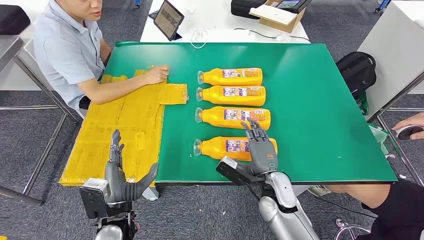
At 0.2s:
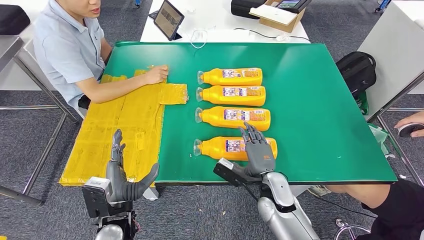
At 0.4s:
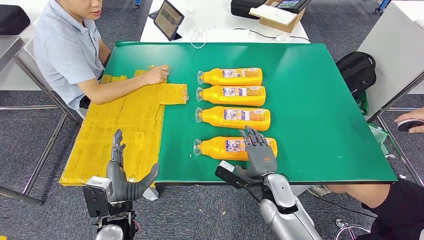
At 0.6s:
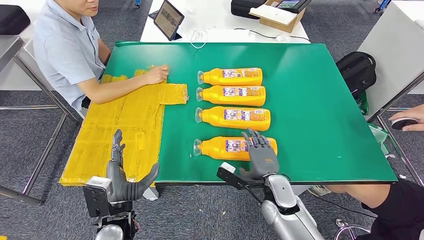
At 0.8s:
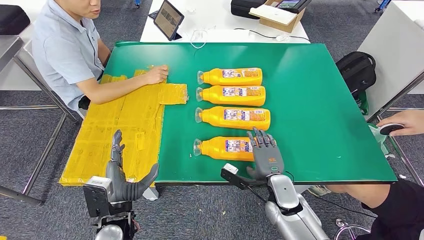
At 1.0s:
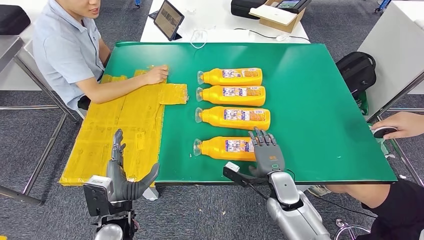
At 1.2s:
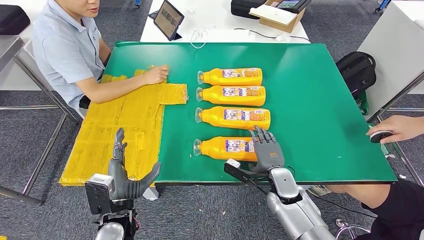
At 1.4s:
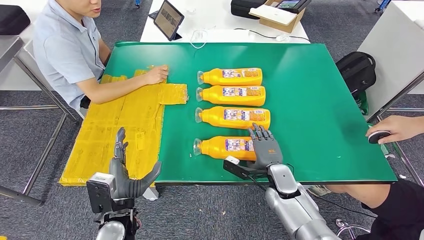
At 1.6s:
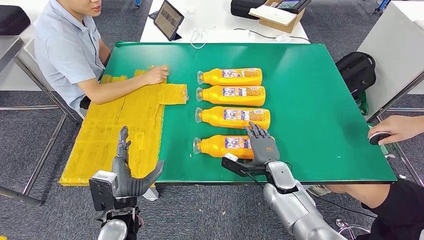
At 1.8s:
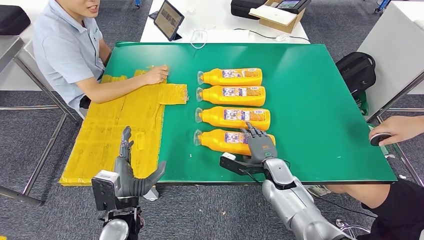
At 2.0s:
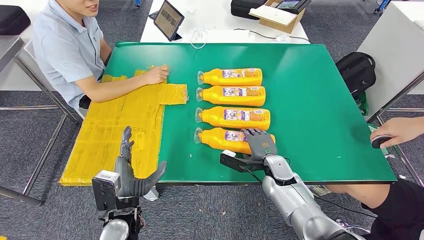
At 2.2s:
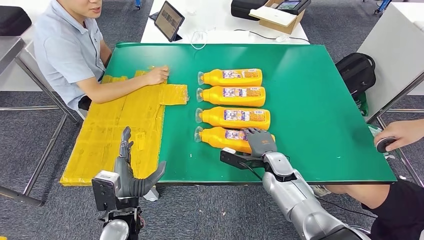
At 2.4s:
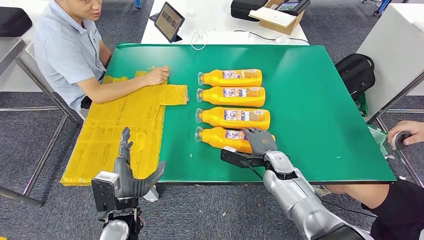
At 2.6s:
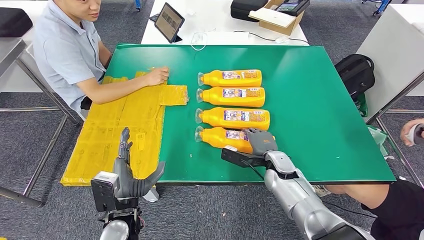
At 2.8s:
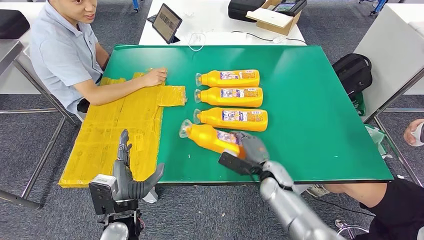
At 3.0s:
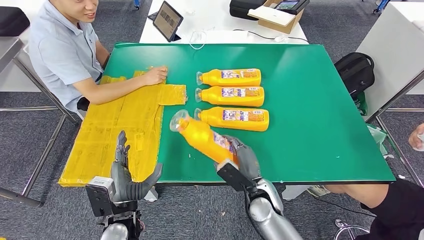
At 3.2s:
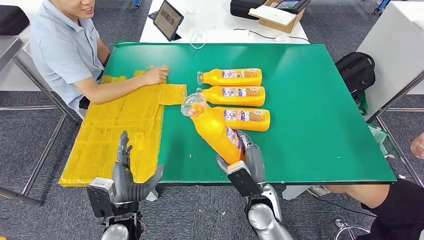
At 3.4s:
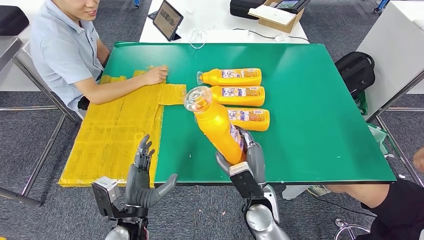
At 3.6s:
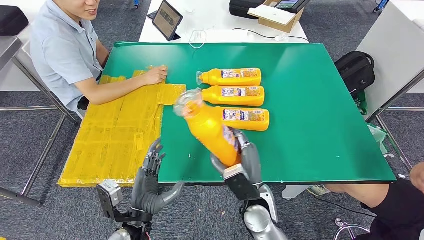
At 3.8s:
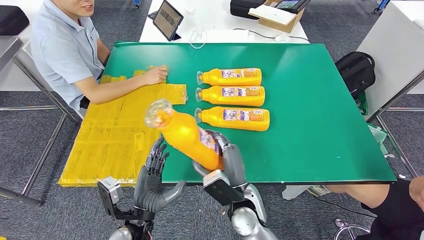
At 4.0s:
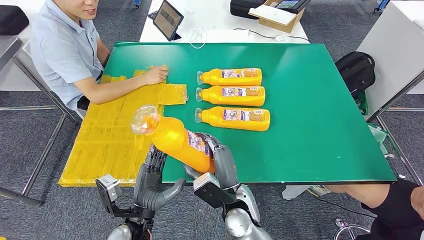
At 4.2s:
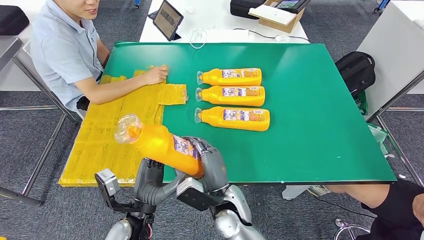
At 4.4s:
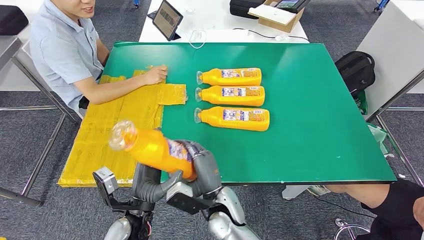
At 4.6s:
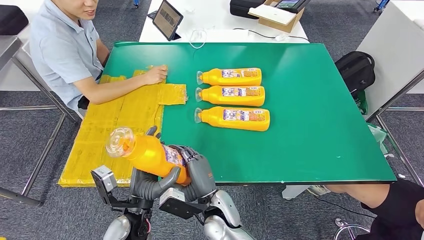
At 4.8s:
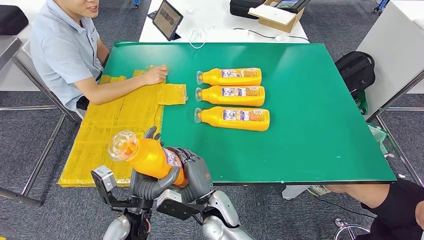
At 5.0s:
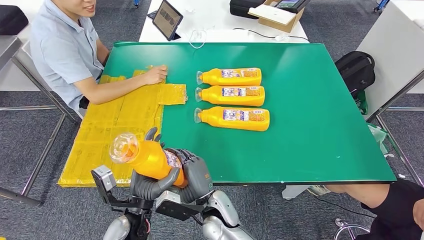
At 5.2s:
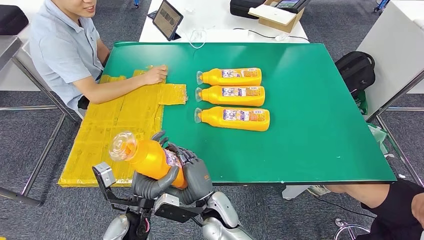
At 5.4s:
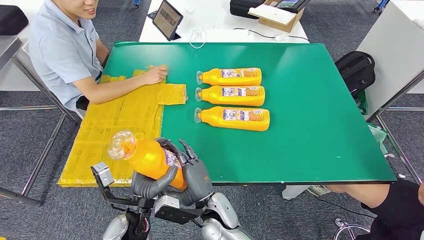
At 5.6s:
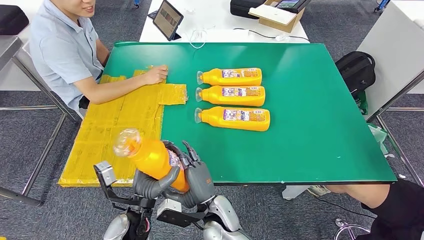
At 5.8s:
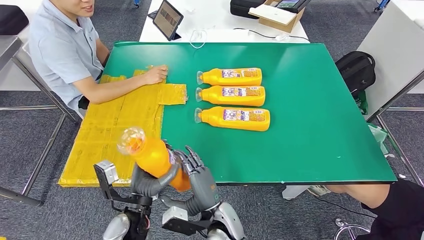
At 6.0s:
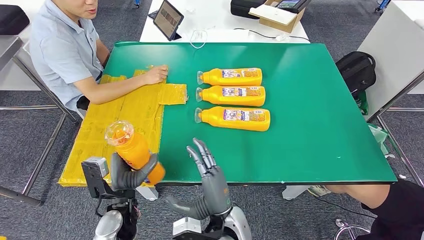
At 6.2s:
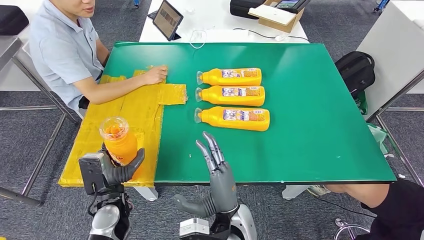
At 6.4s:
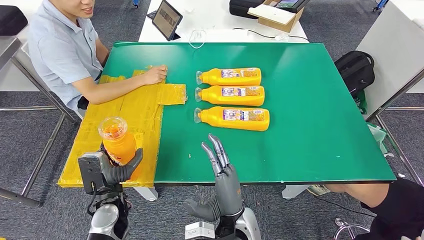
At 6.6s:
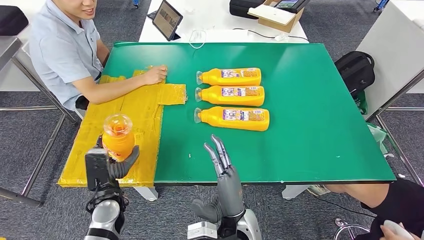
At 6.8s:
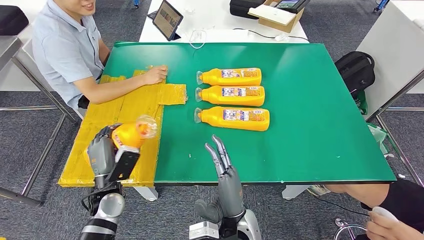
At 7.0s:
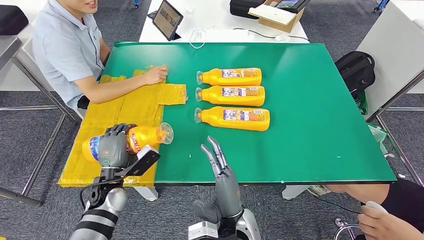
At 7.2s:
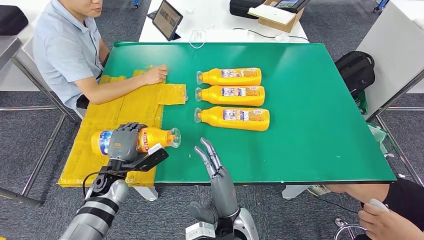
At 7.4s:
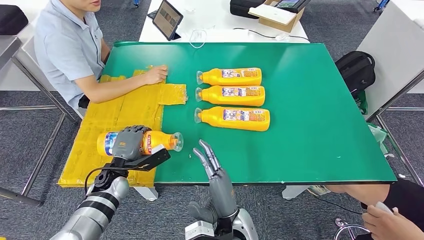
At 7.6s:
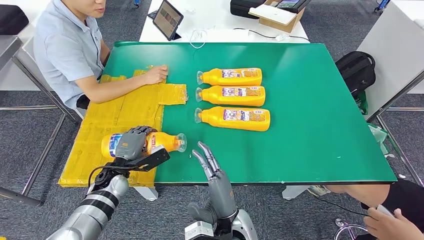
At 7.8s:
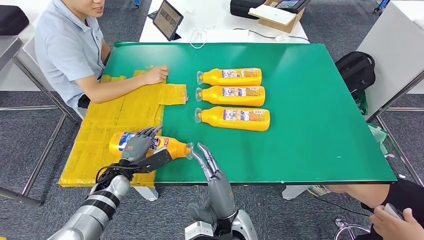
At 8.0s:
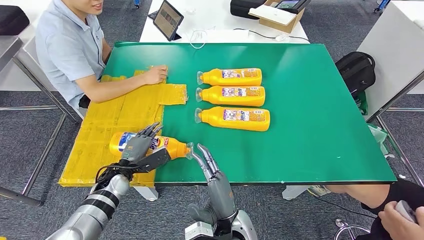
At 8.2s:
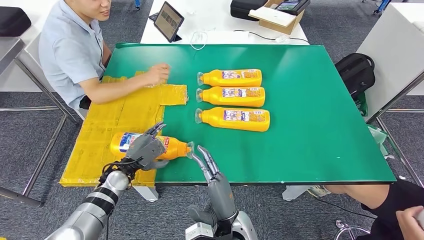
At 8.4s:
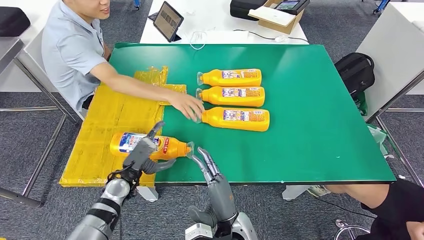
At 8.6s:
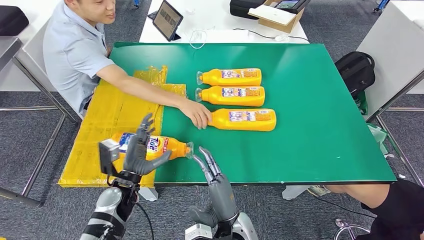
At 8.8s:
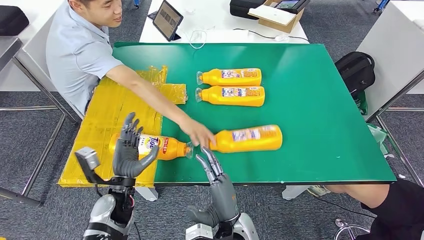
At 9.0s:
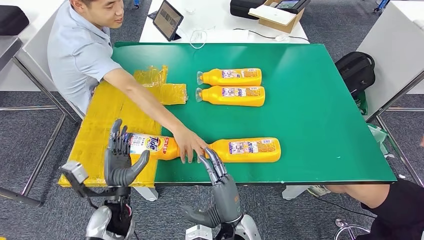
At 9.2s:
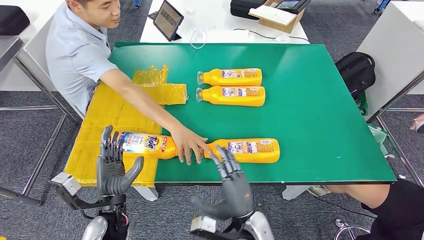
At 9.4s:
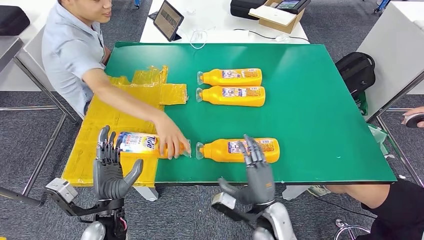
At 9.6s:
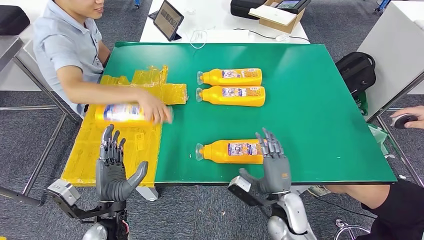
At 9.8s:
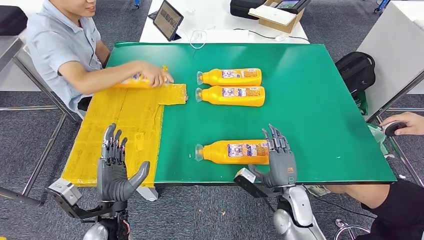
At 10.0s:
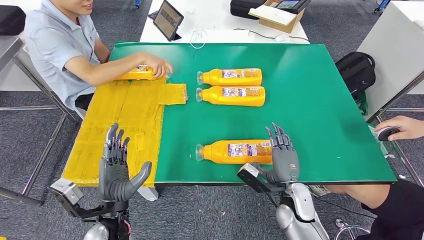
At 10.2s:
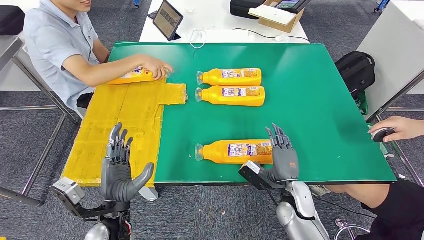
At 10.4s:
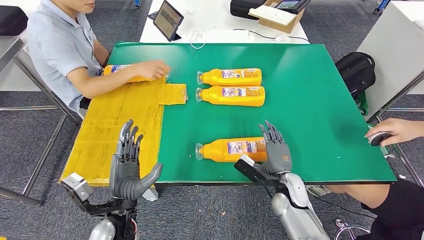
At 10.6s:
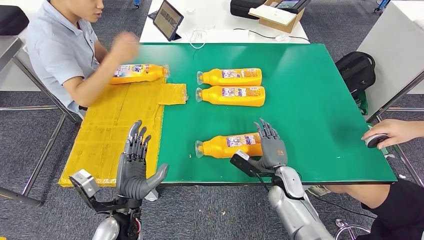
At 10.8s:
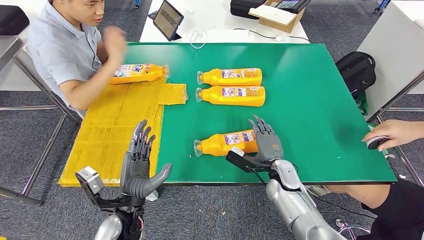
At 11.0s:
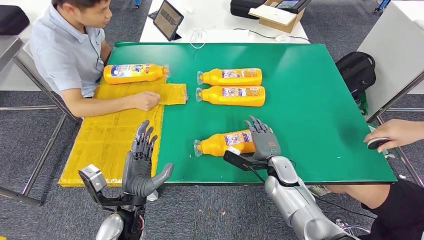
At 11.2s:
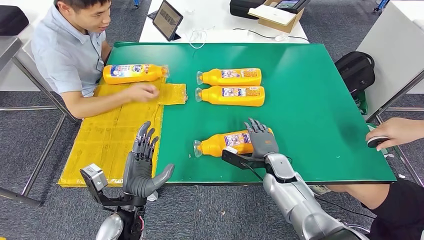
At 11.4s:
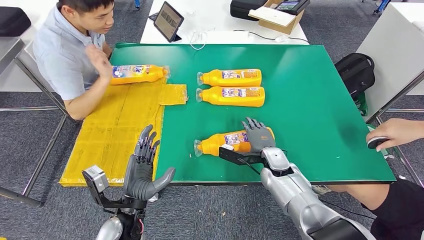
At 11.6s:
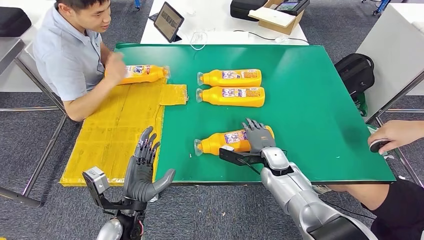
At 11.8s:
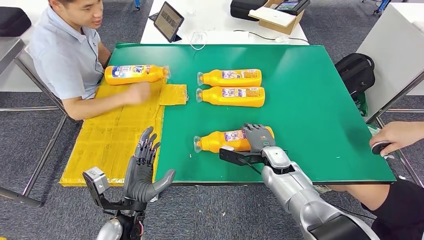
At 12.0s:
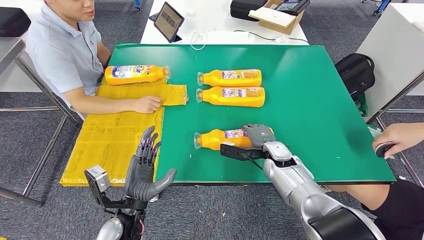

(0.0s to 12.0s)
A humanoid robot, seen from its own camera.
Step, 0.0s - 3.2s: Take the fast-moving consumer goods bottle from the table.
Step, 3.4s - 8.0s: Flip the fast-moving consumer goods bottle to the front side.
1.6s - 3.0s: The right hand travels backward by about 5 cm.
3.0s - 4.4s: The right hand shifts roughly 10 cm to the left.
4.4s - 6.0s: The left hand moves some 5 cm.
6.0s - 7.6s: The left hand moves forward and to the left, some 10 cm.

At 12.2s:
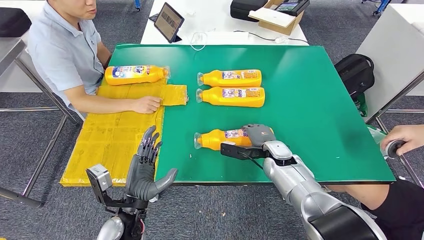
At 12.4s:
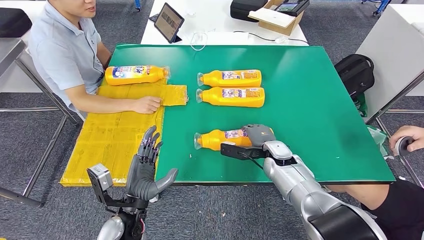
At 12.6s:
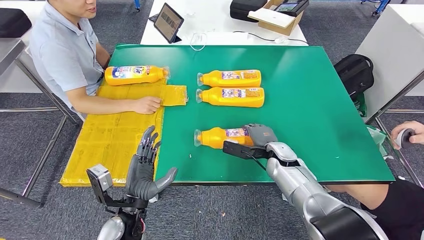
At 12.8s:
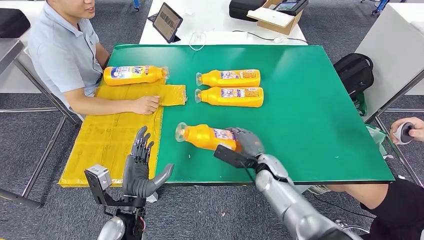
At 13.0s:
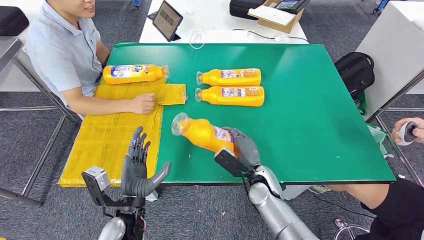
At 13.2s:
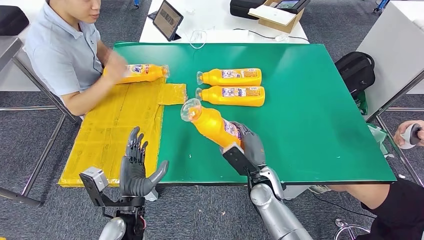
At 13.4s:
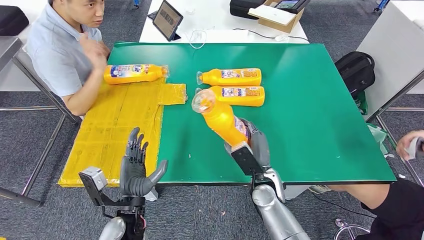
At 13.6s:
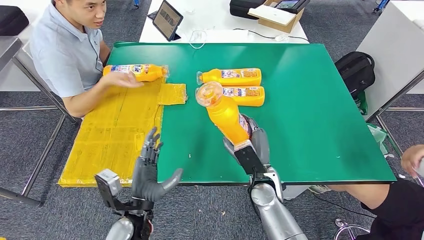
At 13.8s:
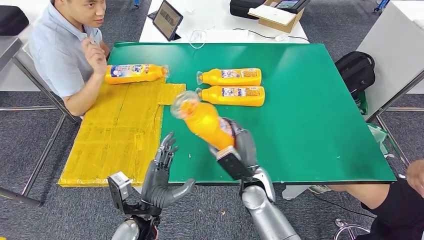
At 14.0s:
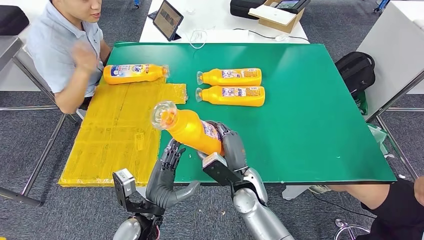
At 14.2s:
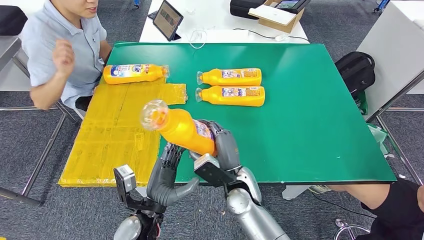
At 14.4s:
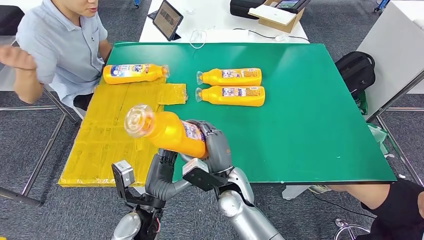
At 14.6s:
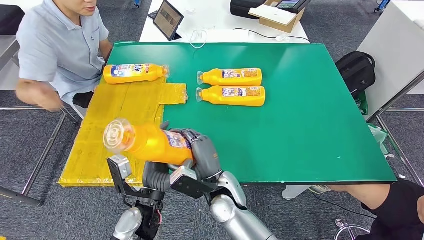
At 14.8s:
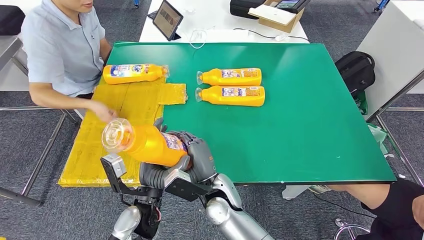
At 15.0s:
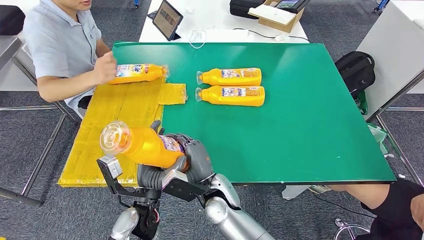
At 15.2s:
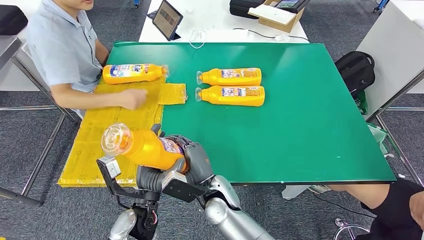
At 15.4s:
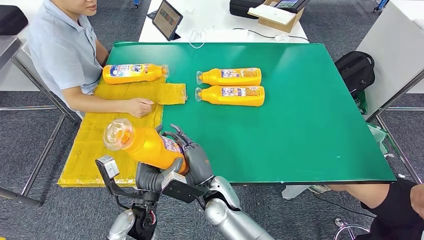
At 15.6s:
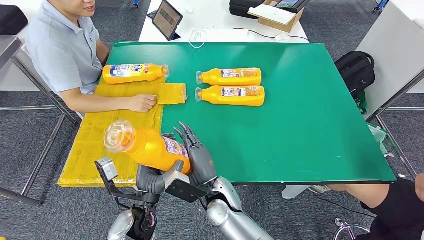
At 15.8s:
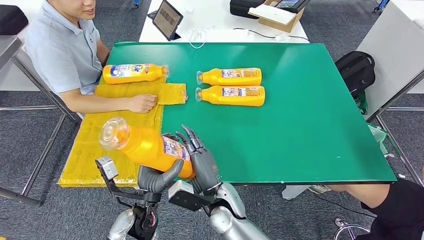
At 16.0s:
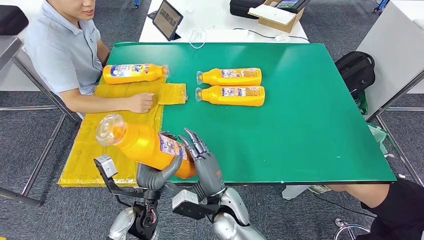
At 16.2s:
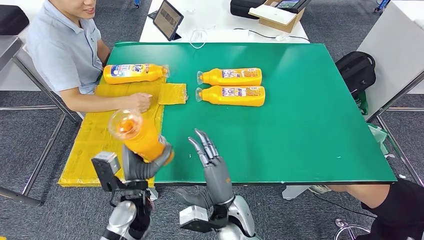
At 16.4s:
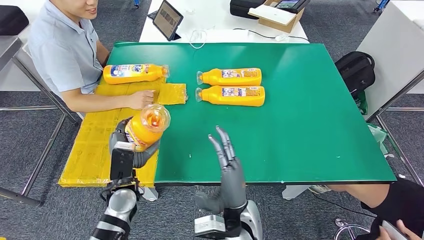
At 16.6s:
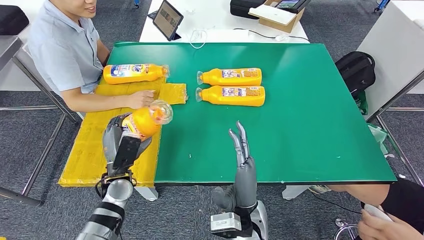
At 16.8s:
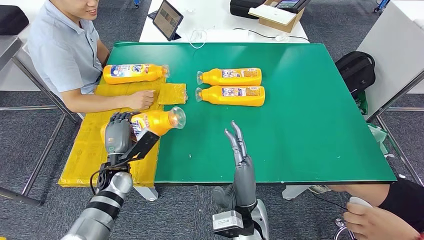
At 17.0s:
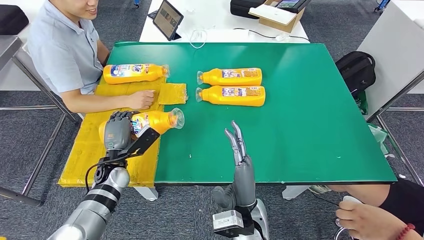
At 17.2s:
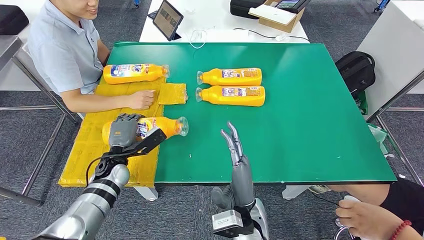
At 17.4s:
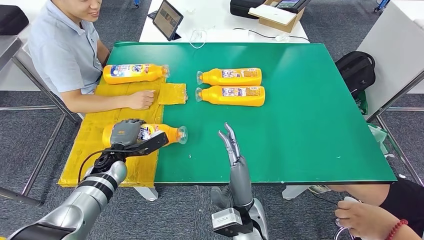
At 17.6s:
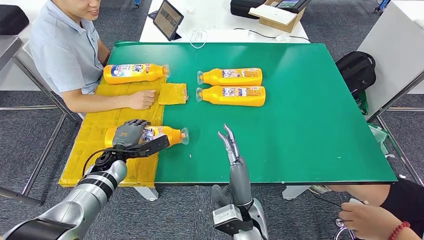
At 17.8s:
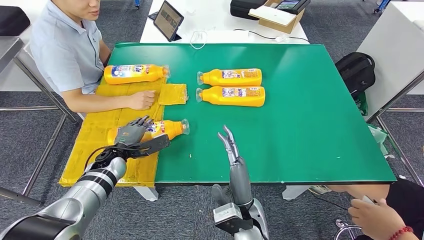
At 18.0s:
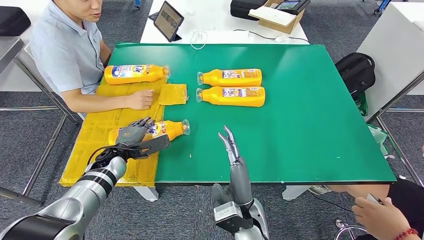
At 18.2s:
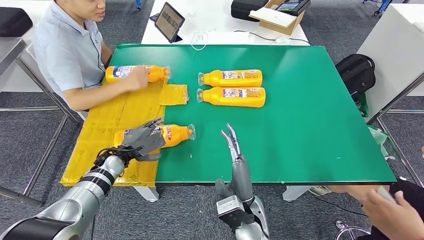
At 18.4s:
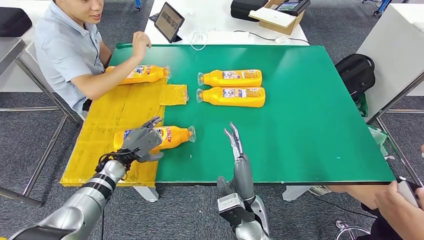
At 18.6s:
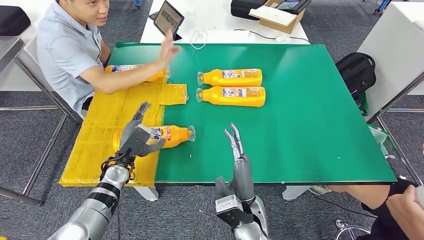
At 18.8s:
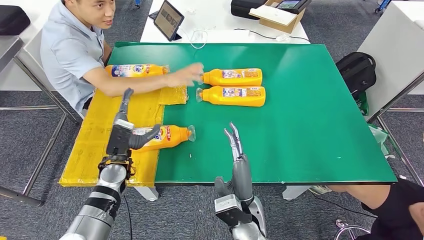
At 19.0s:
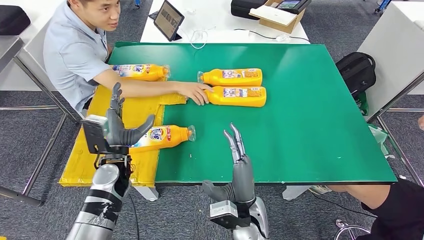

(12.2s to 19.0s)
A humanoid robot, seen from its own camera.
Step, 12.2s - 14.2s: Pick up the fast-moving consumer goods bottle from the table.
Step, 14.4s - 17.8s: Flip the fast-moving consumer goods bottle to the front side.
13.6s - 15.0s: The right hand is displaced to the left by roughly 15 cm.
15.0s - 16.2s: The right hand shifts by roughly 5 cm.
16.2s - 17.6s: The left hand goes some 15 cm forward and to the left.
